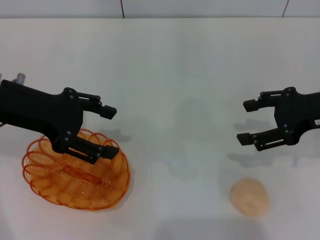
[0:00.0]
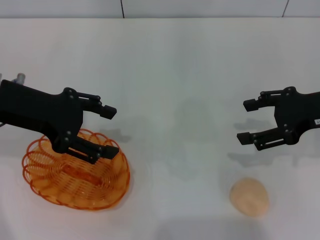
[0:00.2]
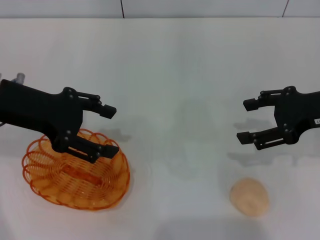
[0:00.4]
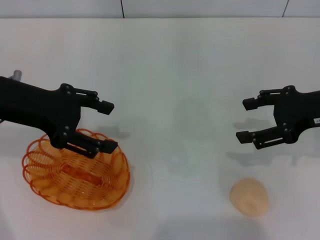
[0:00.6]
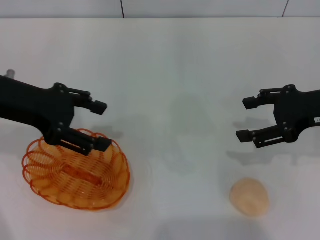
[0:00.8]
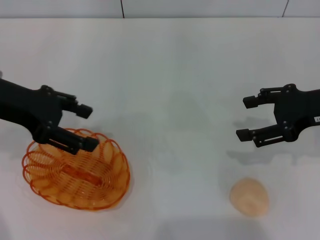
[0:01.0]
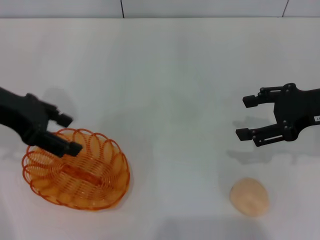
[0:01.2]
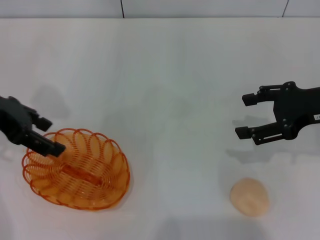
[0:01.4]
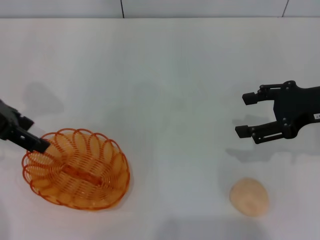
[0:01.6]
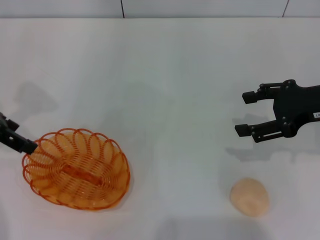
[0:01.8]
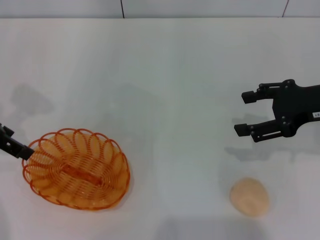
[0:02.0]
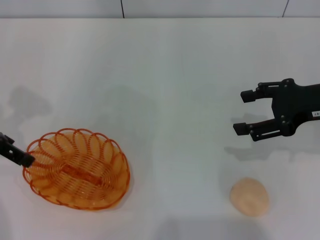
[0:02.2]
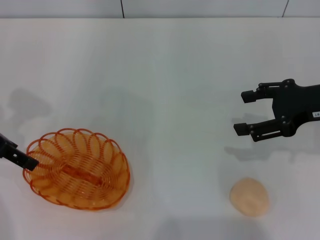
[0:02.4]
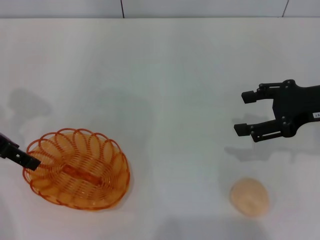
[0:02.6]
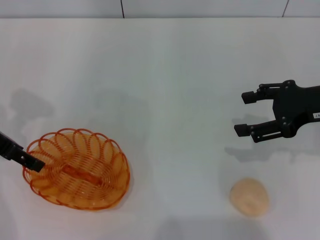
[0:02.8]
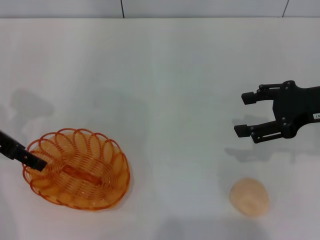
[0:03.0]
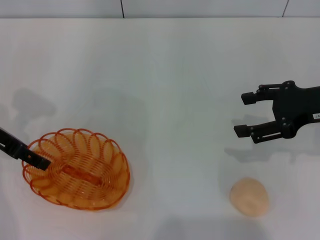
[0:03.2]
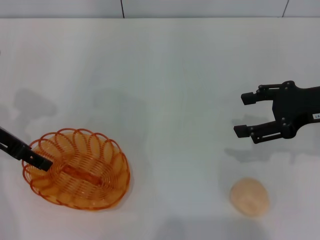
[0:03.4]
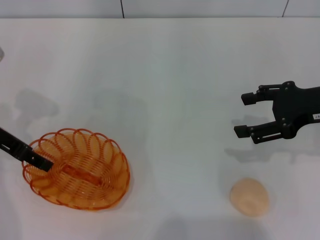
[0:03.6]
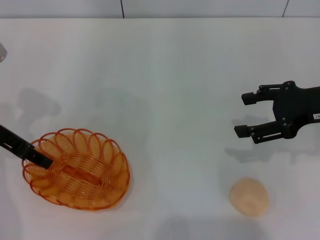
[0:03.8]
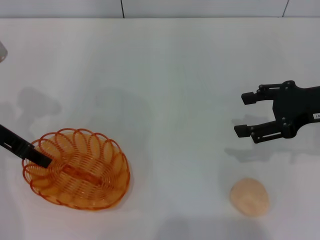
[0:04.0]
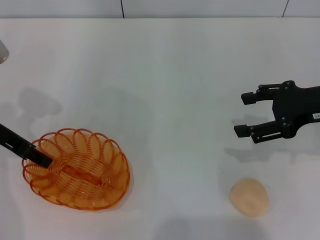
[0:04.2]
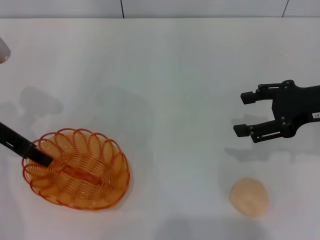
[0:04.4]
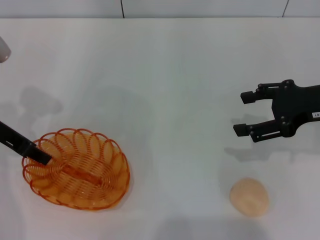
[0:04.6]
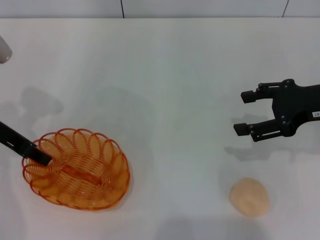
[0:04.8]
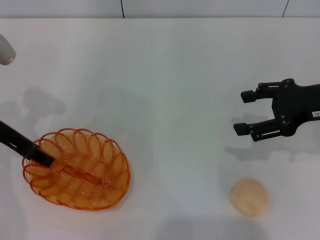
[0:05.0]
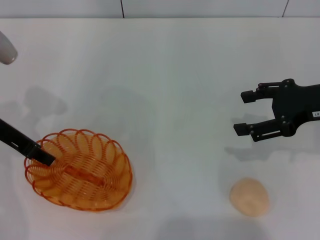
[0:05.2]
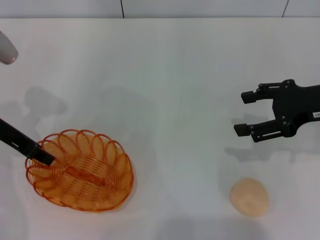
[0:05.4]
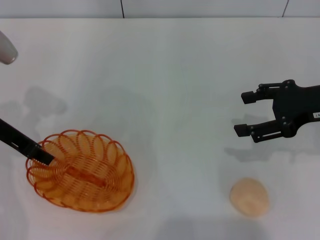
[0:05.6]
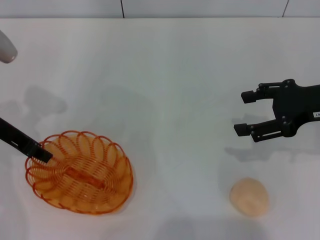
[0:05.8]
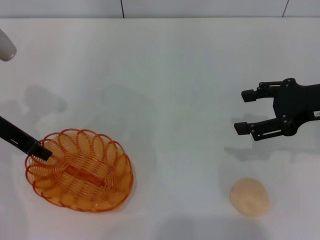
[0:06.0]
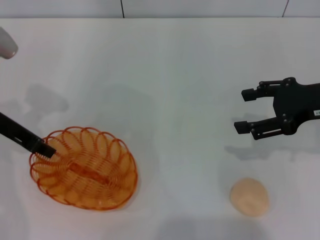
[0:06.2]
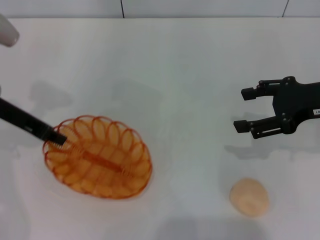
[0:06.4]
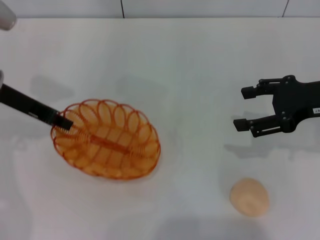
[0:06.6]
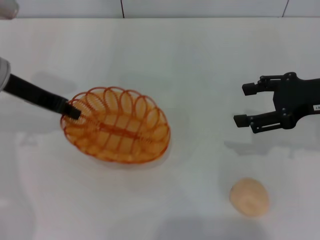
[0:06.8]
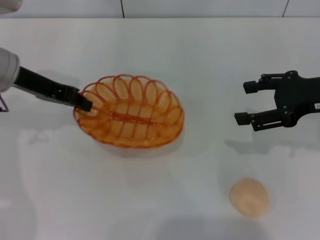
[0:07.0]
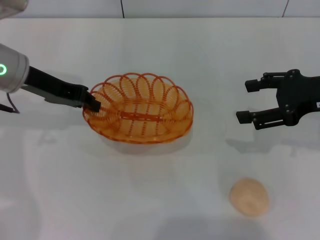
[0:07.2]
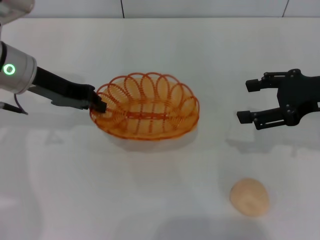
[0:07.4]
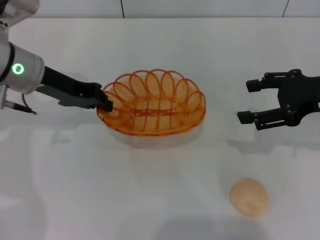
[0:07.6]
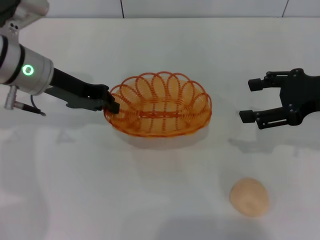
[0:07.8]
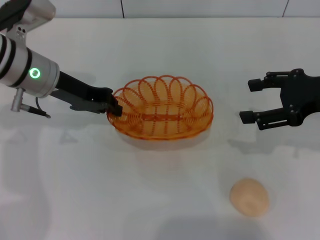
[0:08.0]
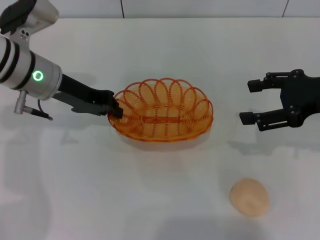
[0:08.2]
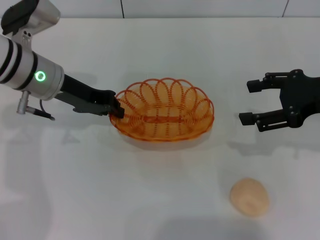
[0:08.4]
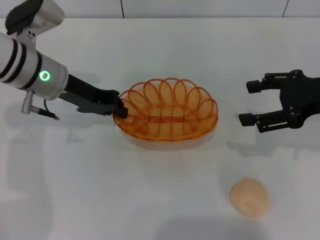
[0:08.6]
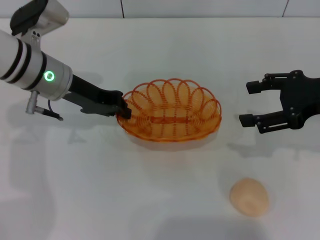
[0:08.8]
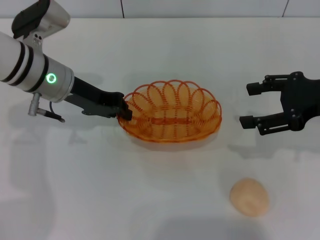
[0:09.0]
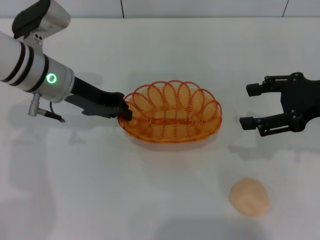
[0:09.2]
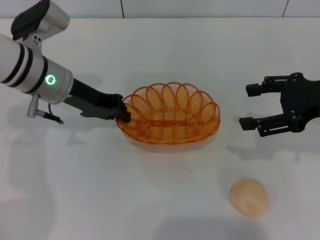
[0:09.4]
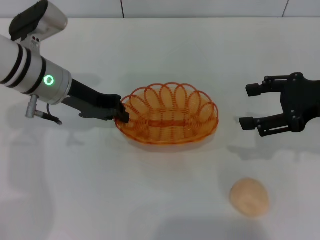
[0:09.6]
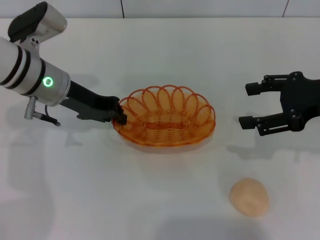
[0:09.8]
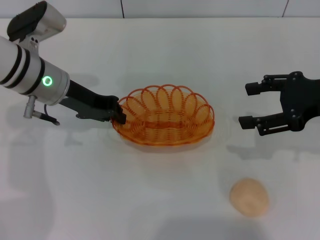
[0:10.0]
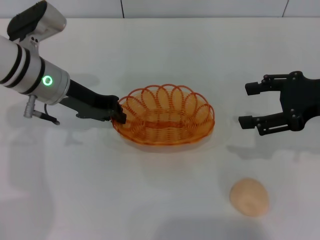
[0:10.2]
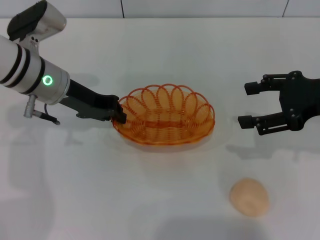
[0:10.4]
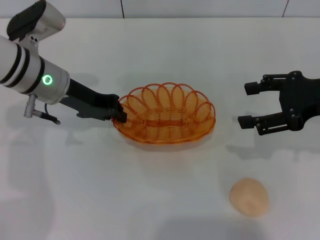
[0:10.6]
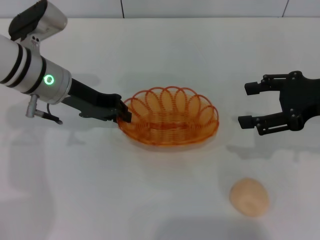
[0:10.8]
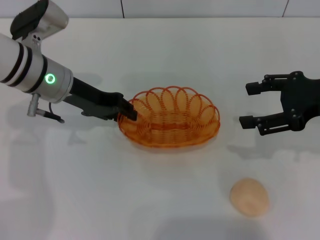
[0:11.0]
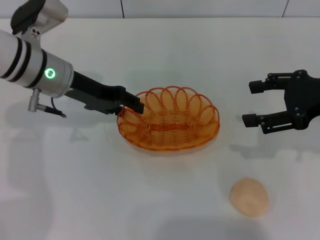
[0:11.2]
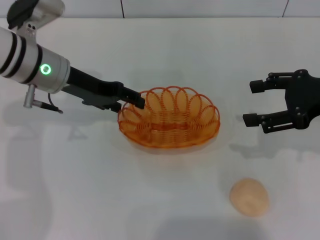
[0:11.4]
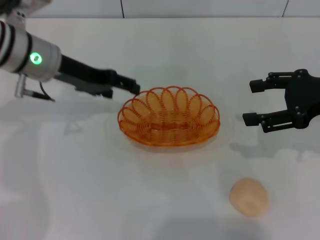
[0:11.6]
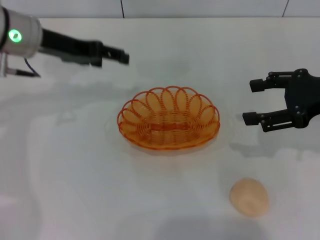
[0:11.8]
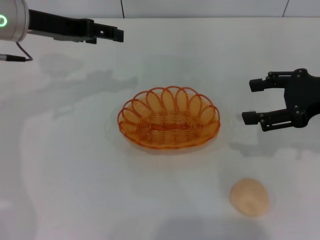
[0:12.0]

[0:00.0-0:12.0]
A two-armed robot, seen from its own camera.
Step, 0:00.0 to 0:06.8: Pick up the basket with the left gripper.
0:00.0 to 0:01.6: The left gripper ends up approximately 5 cm from where it was.
0:01.6 to 0:03.0: The left gripper moves downward, roughly 5 cm.
0:03.0 to 0:04.4: The left gripper closes.
0:04.4 to 0:06.0: The left gripper closes.
0:06.0 to 0:07.6: The left gripper is displaced to the right by some 5 cm.
0:07.6 to 0:09.0: The grippers stay close to where they were, moving slightly.
0:09.0 to 0:10.4: Both grippers stay put.
0:10.4 to 0:12.0: The left gripper moves upward, roughly 10 cm, and opens its fingers.

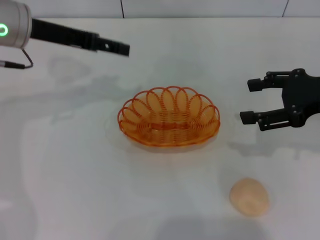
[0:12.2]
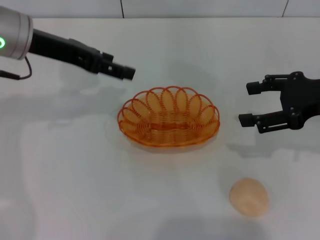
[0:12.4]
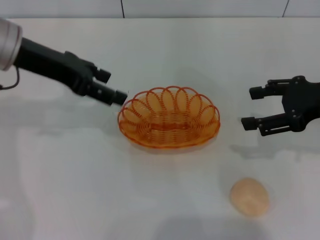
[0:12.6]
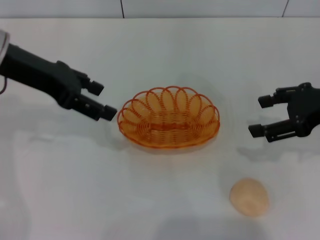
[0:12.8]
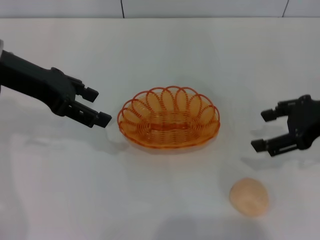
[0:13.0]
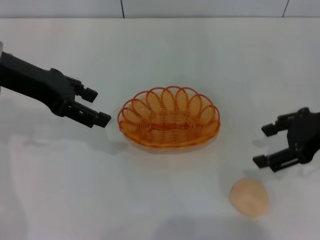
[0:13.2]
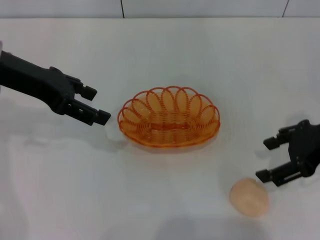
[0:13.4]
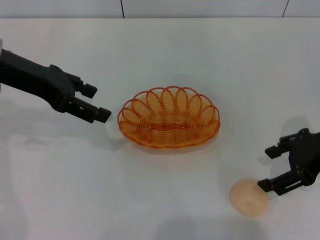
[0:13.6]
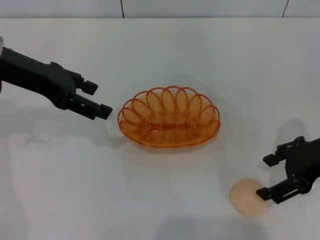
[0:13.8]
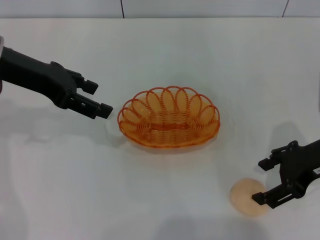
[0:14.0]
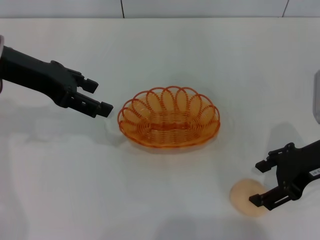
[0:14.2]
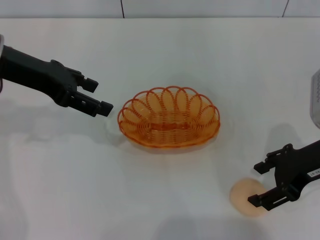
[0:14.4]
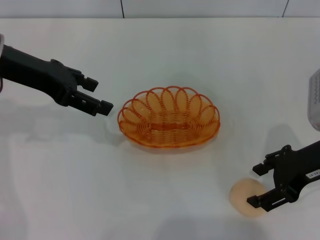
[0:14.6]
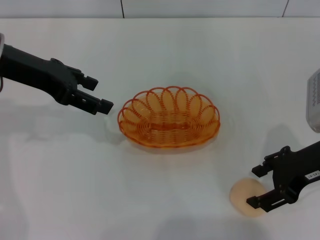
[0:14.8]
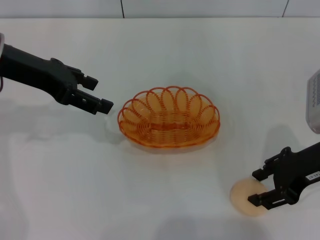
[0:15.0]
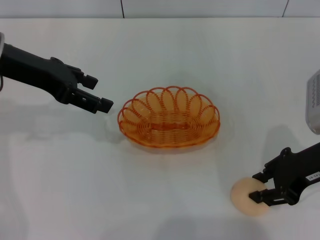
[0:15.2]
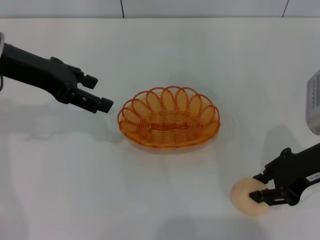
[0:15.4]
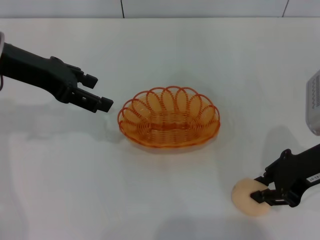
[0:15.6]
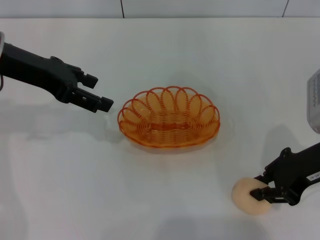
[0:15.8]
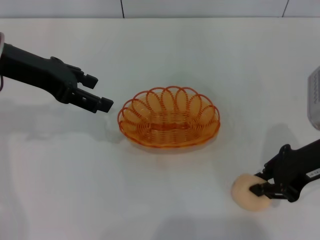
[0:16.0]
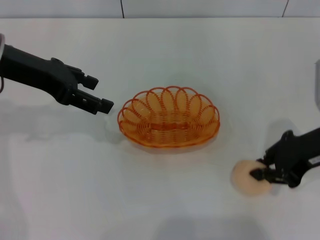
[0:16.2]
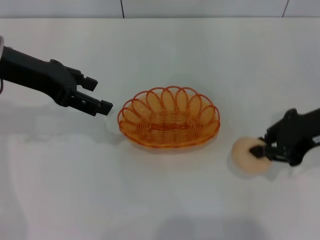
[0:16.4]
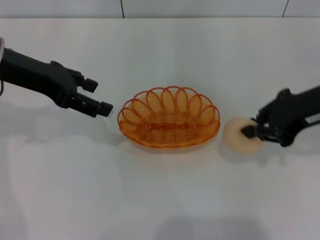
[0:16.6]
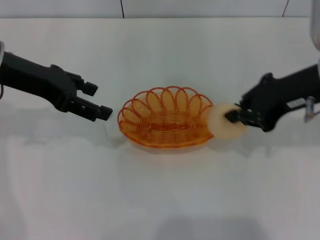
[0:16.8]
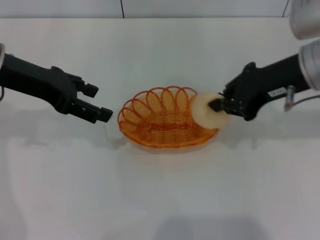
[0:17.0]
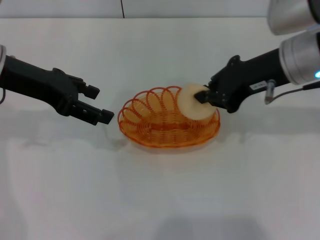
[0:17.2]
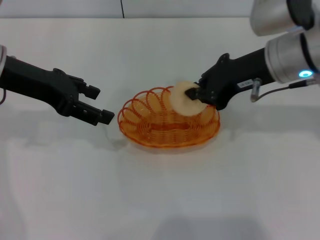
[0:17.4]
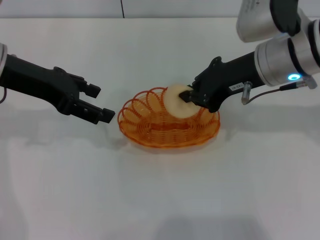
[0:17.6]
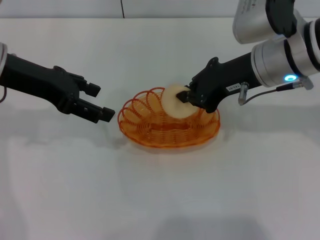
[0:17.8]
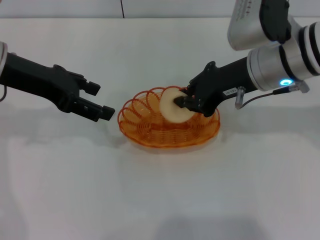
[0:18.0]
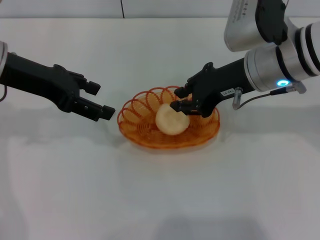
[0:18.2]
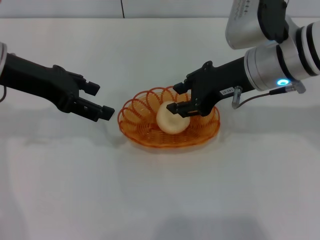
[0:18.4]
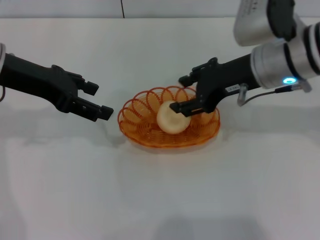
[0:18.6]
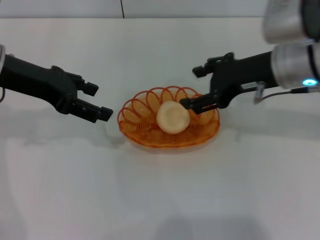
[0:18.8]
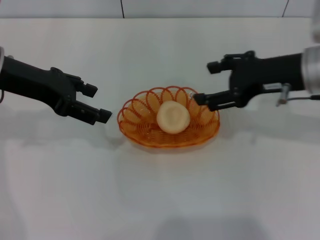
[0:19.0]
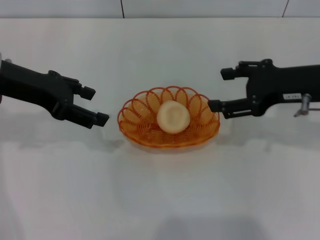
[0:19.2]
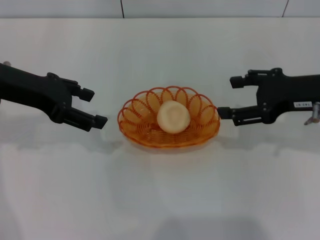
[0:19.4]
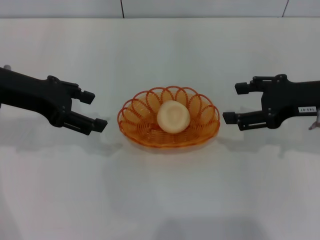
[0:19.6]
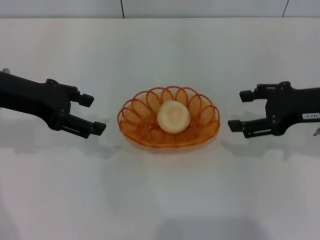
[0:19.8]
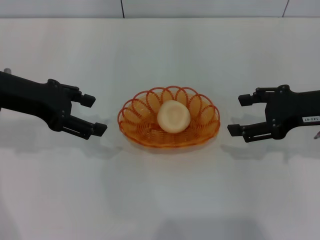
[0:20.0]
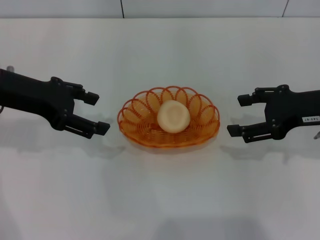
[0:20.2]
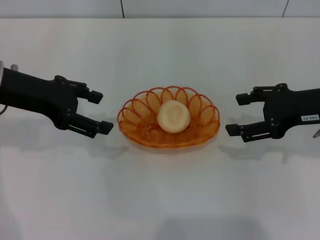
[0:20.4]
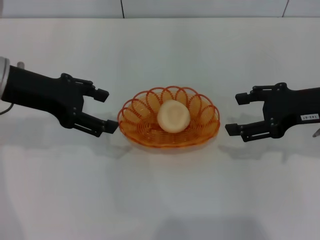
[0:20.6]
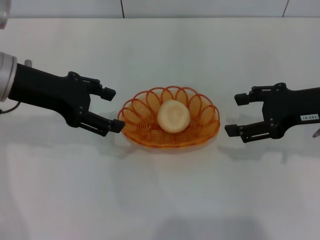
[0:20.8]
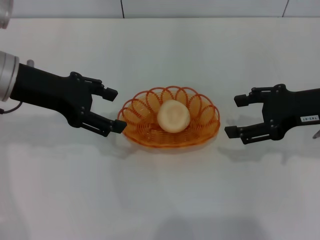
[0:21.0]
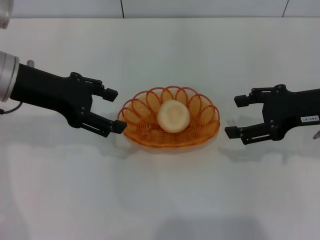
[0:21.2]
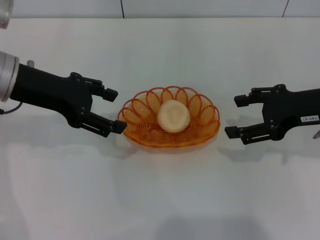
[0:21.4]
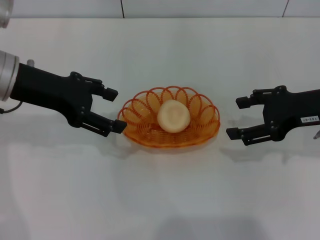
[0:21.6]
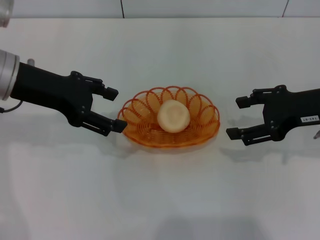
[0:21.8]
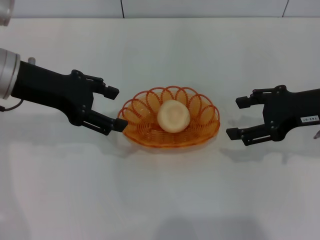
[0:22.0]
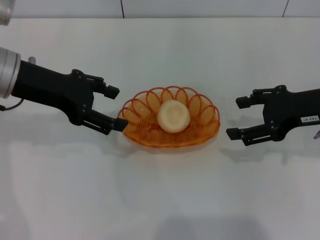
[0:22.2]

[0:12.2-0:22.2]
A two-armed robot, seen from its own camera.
Step, 0:12.2 to 0:16.4: Pick up the egg yolk pastry with the right gripper.
Step, 0:16.6 to 0:19.0: Place the egg yolk pastry into the basket with the right gripper.
0:12.2 to 0:13.6: The left gripper changes place by approximately 5 cm.
0:13.6 to 0:15.0: The grippers stay close to where they were, moving slightly.
0:15.0 to 0:16.4: The right gripper closes its fingers.
0:16.4 to 0:18.0: The right gripper moves to the left and forward, roughly 10 cm.
0:18.0 to 0:19.4: The right gripper travels to the right by some 10 cm, and opens its fingers.
0:19.4 to 0:20.8: The grippers make only small movements.
0:20.8 to 0:22.2: Both grippers stay put.
